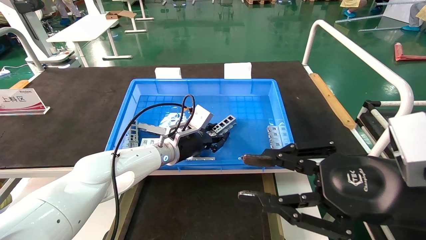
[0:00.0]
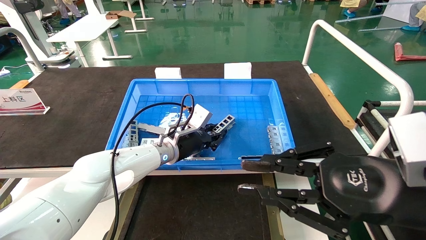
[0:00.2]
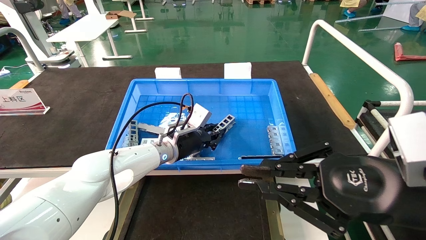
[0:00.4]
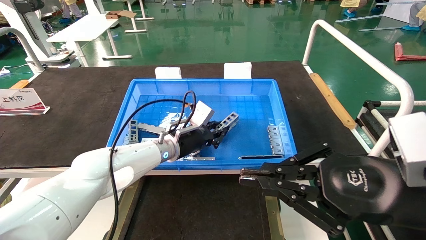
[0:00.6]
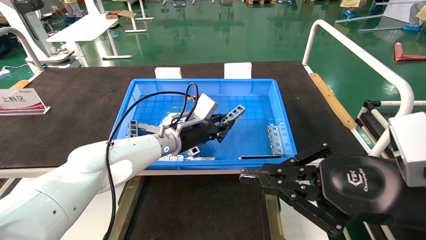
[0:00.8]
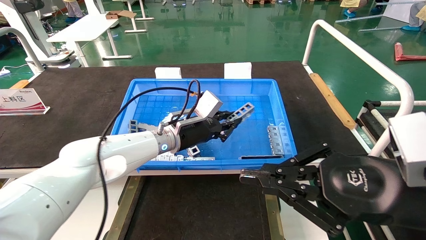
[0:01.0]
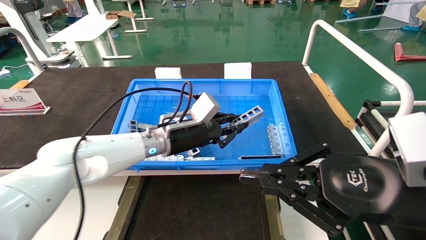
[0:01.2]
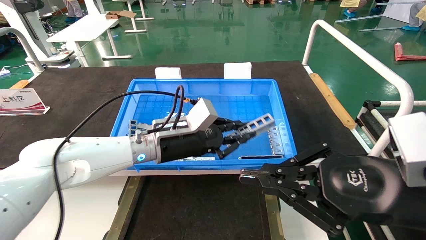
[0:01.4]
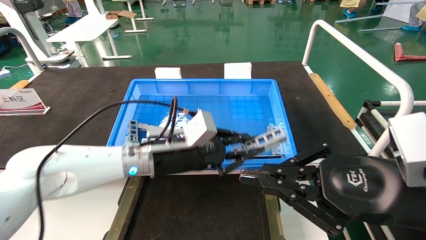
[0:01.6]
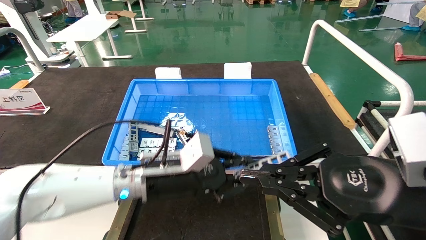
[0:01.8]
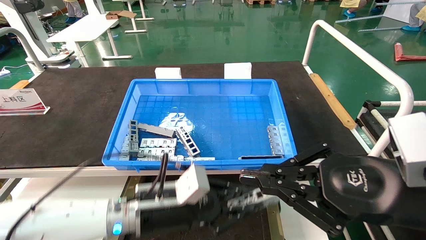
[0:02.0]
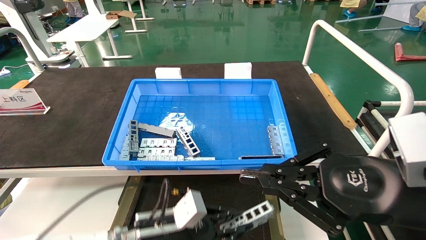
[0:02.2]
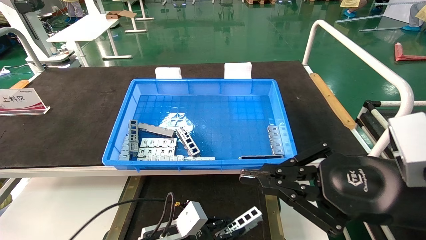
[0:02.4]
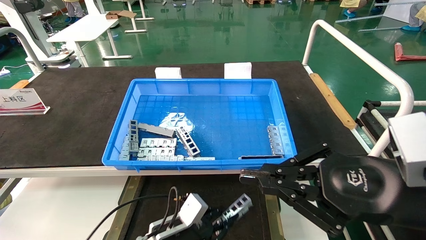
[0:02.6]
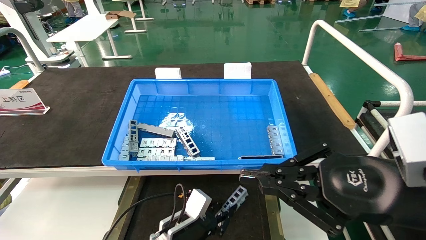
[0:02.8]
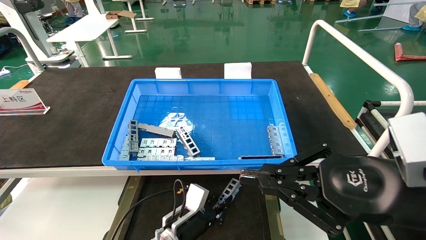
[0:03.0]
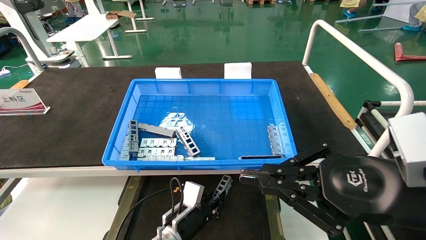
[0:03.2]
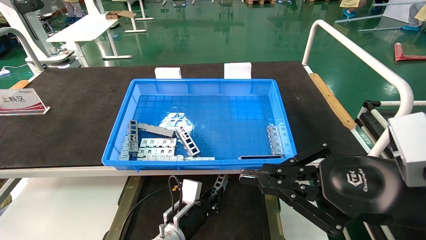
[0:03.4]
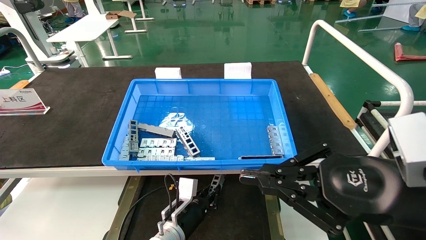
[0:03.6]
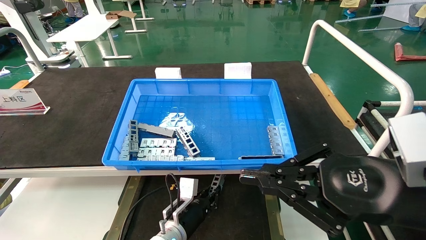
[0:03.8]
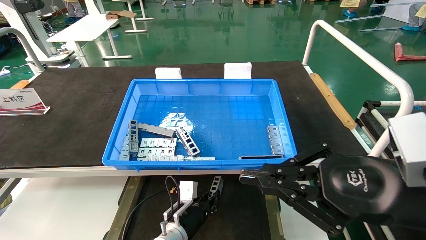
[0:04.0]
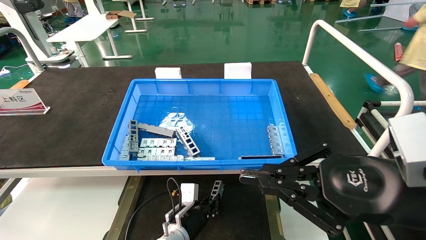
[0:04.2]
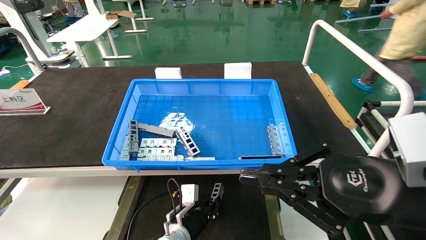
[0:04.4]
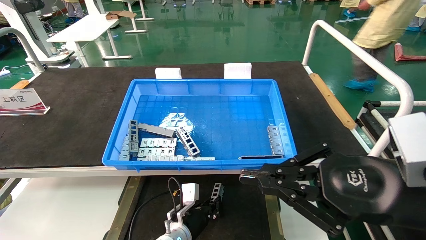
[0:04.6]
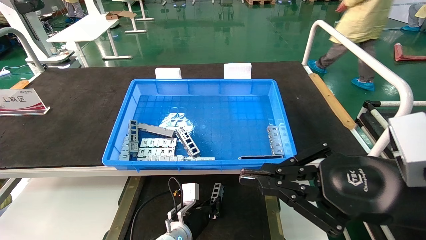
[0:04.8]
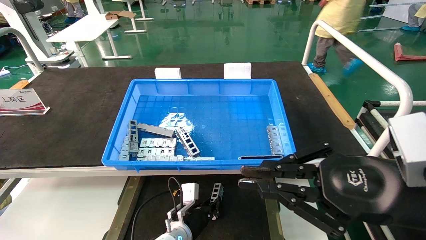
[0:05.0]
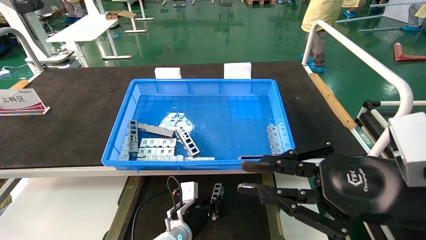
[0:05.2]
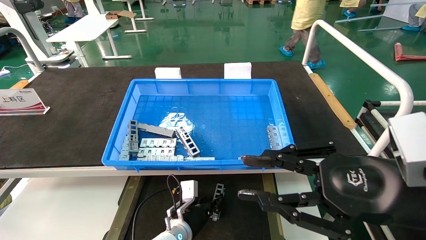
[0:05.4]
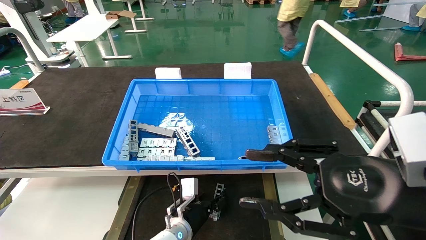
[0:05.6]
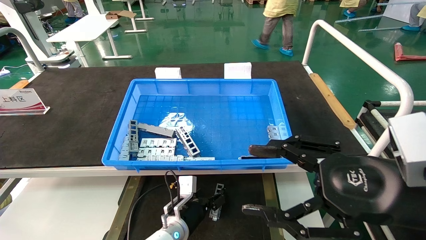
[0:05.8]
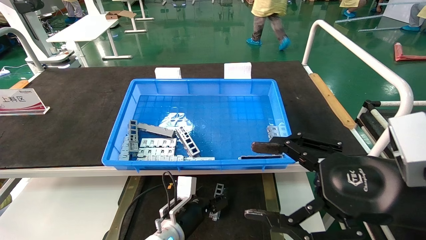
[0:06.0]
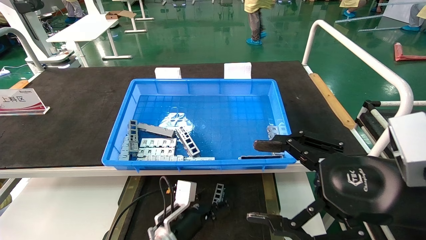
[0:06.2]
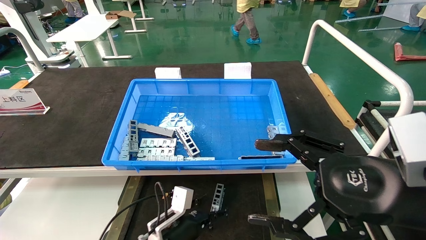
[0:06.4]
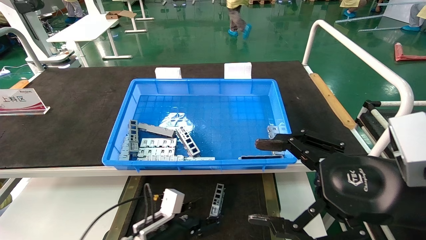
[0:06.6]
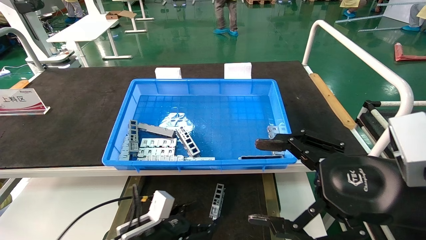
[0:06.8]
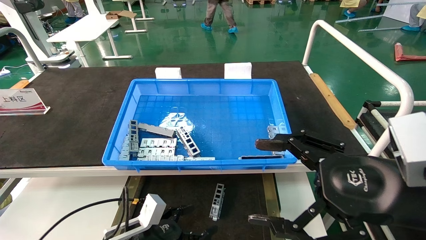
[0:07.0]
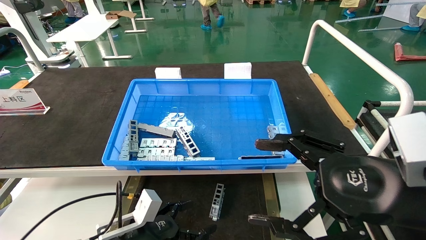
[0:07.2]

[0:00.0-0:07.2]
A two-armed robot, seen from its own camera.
Task of the whole recording: Grasp the part with one hand and place it on the black container.
Step, 0:01.4 to 0:05.2: Place the front USB bracket into the box.
0:00.0 to 0:01.4: The right gripper closes its fingers, while the left gripper moves backward, some 10 cm, and closes.
0:01.4 to 0:02.8: The left gripper travels downward by some 20 cm.
0:02.8 to 0:04.4: The left gripper changes place by roughly 5 cm.
0:04.4 to 0:05.8: The right gripper opens up; the left gripper opens.
0:05.8 to 0:07.2: The left gripper is displaced backward, to the left and upward by roughly 15 cm, and opens up. The right gripper opens.
